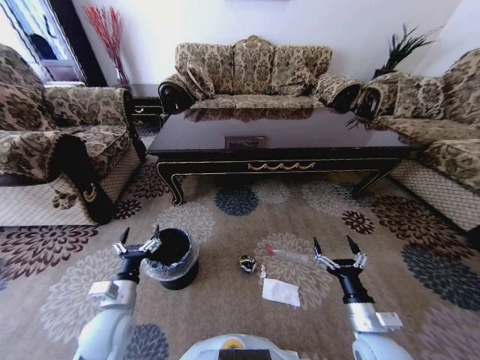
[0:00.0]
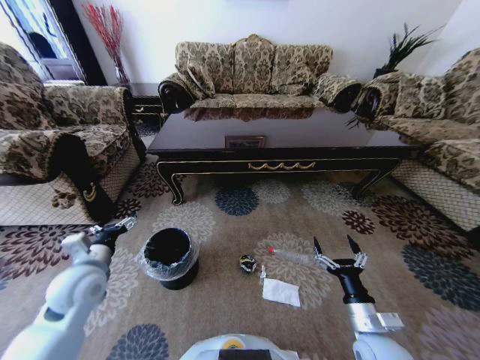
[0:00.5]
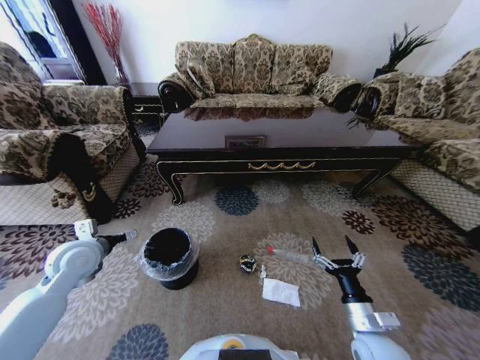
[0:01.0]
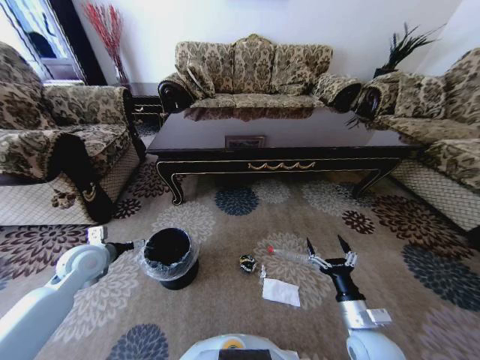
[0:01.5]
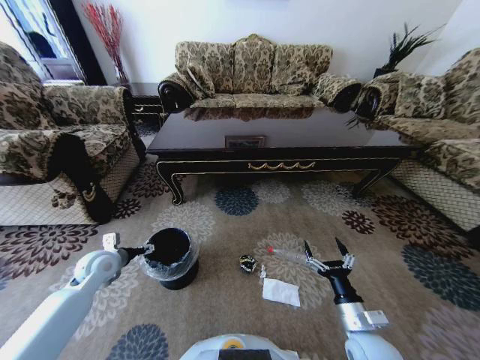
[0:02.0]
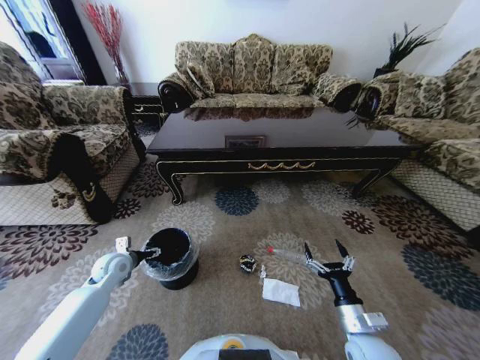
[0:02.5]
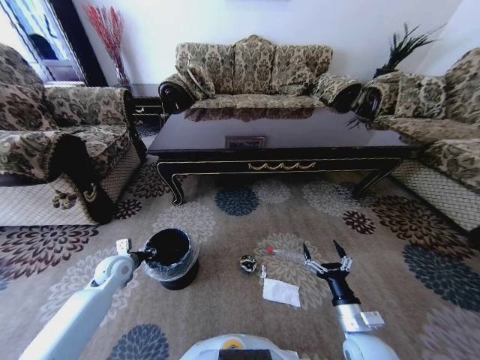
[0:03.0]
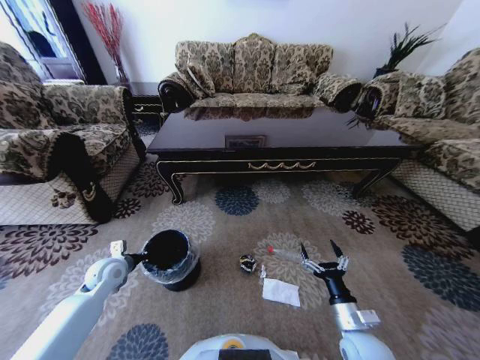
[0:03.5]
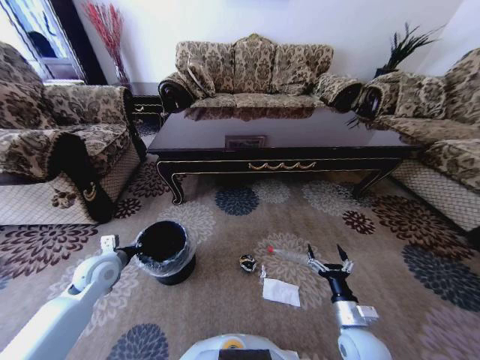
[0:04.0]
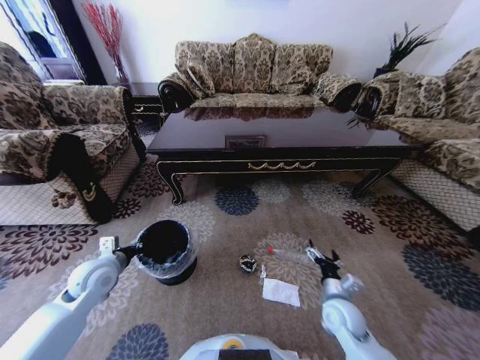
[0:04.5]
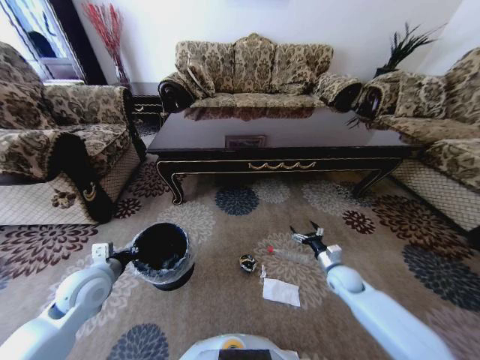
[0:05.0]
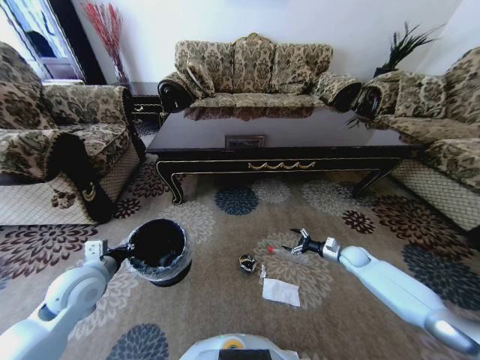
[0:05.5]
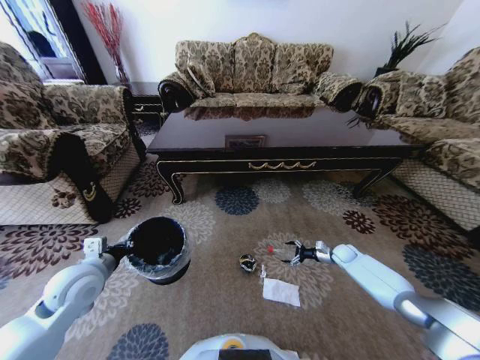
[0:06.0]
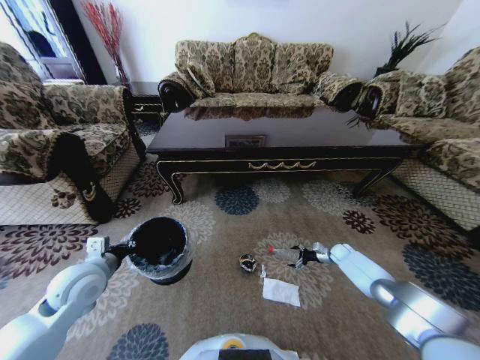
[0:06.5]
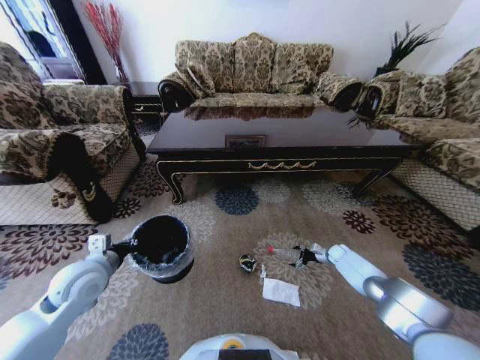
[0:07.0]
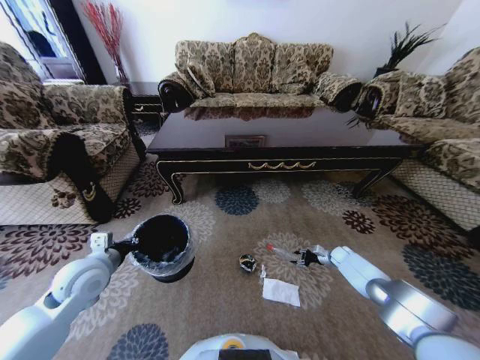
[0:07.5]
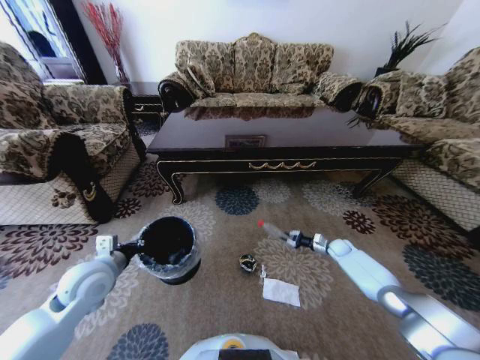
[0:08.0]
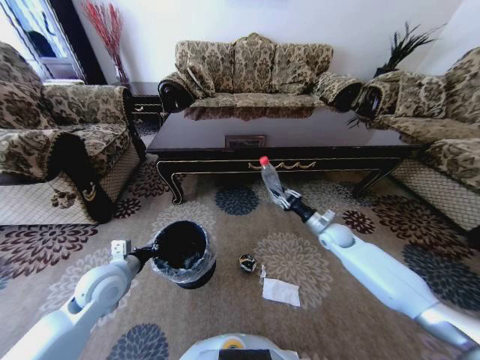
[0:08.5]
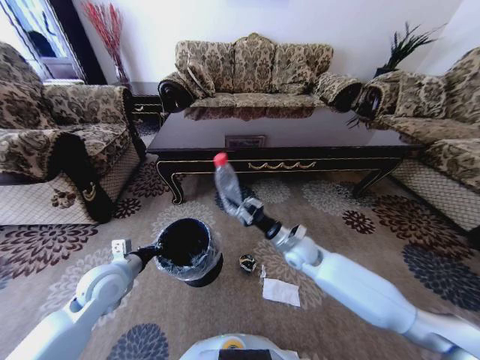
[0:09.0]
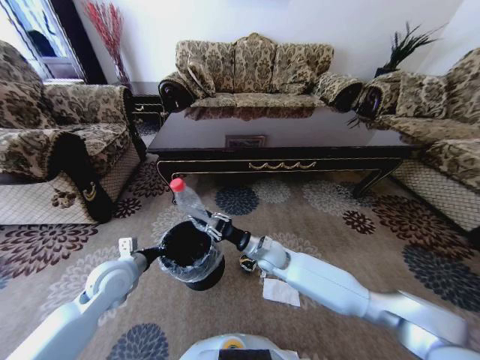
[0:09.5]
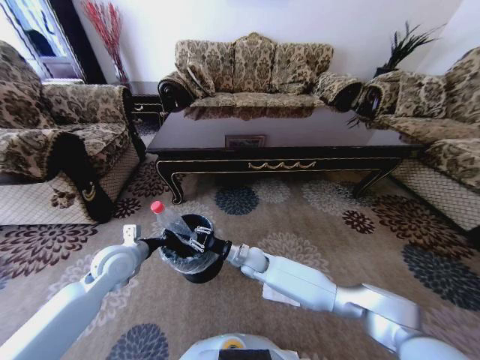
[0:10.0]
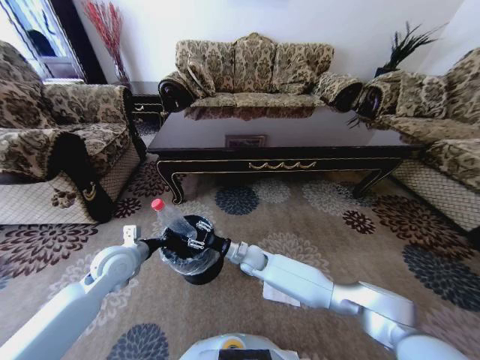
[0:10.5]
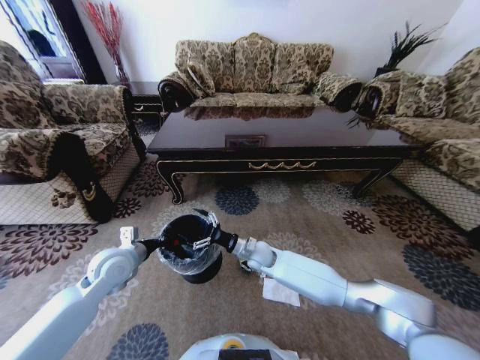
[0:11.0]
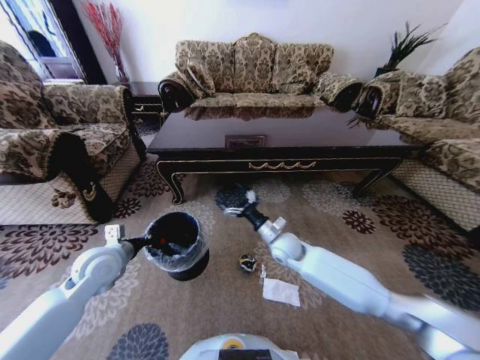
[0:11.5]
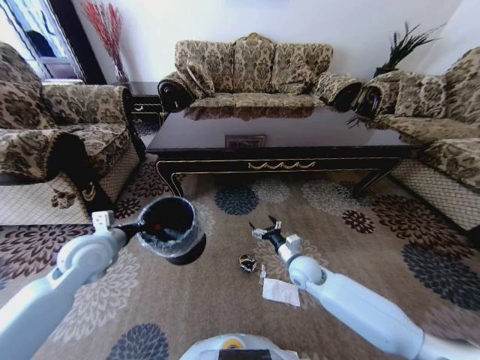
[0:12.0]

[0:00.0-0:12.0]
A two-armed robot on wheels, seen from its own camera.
Task of the whole recording: Move to the front of the table and pick up the trash from the floor, then place it into the trash bin.
0:00.0 to 0:02.0: The left gripper shifts roughly 20 cm forward and to the left.
0:02.0 to 0:04.0: The left gripper closes its fingers.
0:04.0 to 0:06.0: The left gripper travels upward and backward by about 10 cm. Meanwhile the right gripper is displaced forward and to the right by about 35 cm.
0:06.0 to 0:08.0: The right gripper closes its fingers.
0:08.0 to 0:10.0: The right gripper goes approximately 40 cm to the left, while the left gripper is displaced forward by some 5 cm.
0:10.0 to 0:12.0: The left gripper is displaced upward by some 5 cm; the right gripper goes about 15 cm to the right, and opens its fingers.

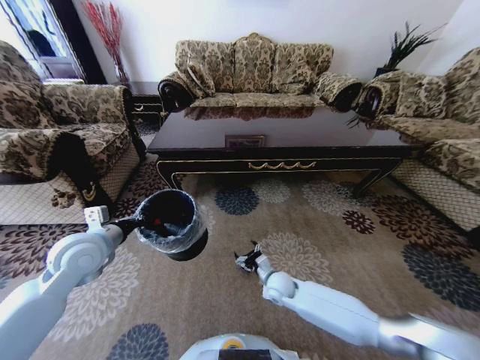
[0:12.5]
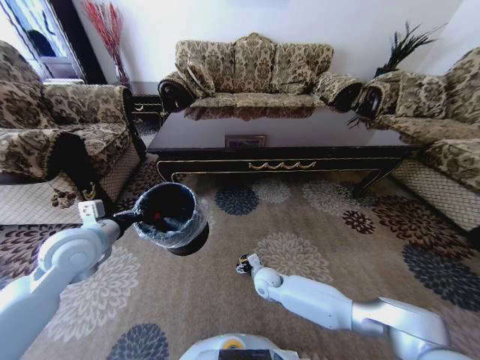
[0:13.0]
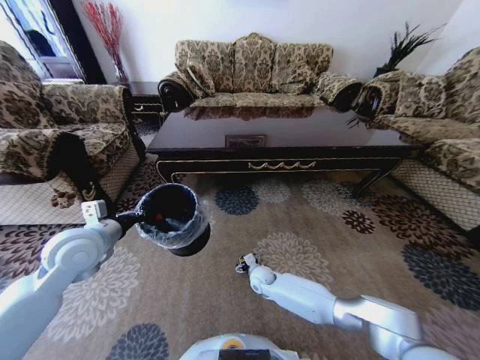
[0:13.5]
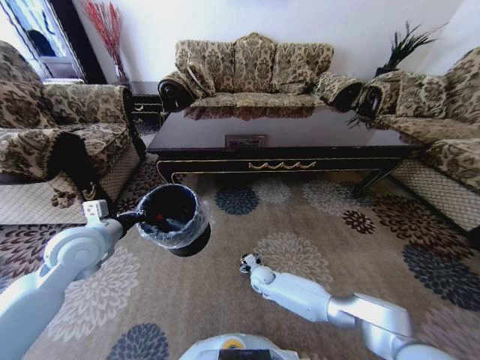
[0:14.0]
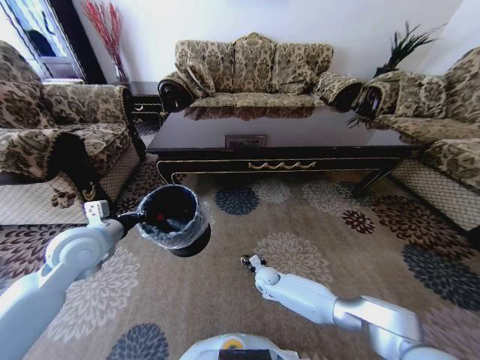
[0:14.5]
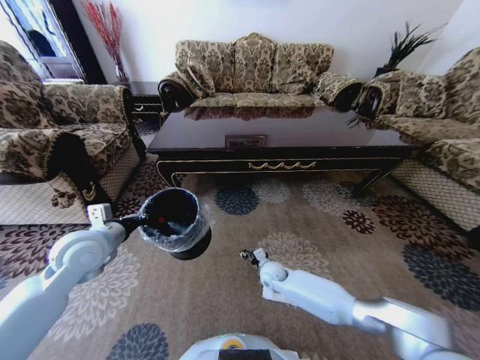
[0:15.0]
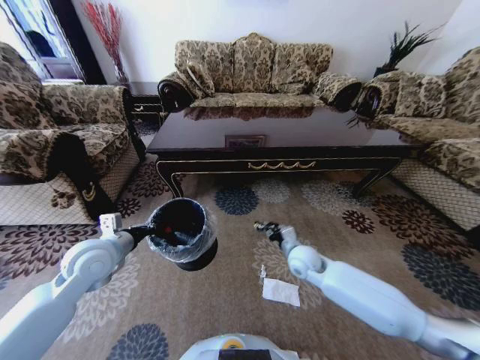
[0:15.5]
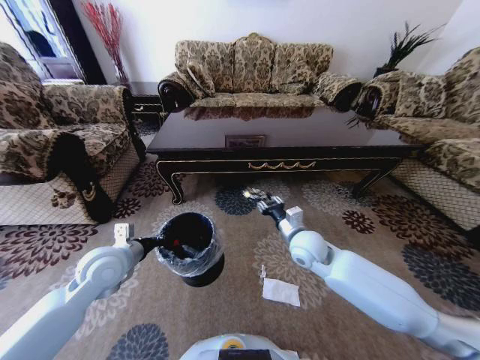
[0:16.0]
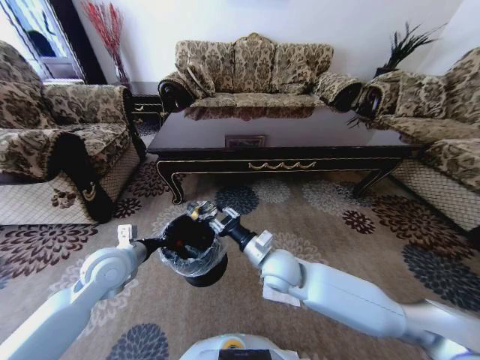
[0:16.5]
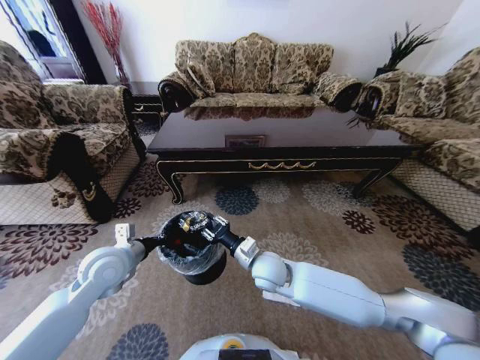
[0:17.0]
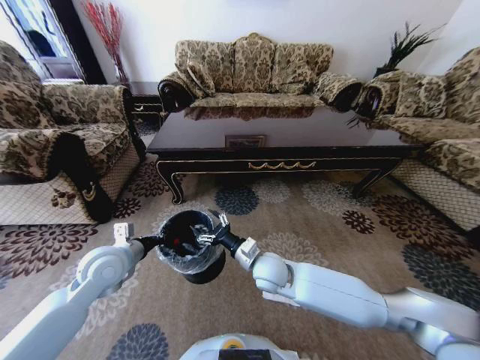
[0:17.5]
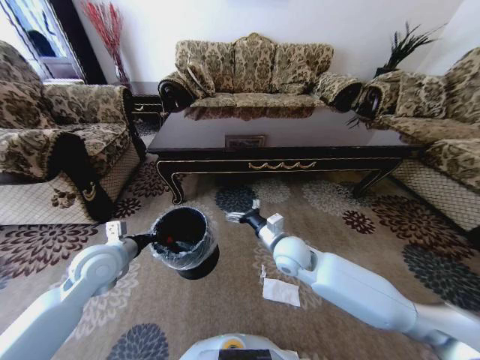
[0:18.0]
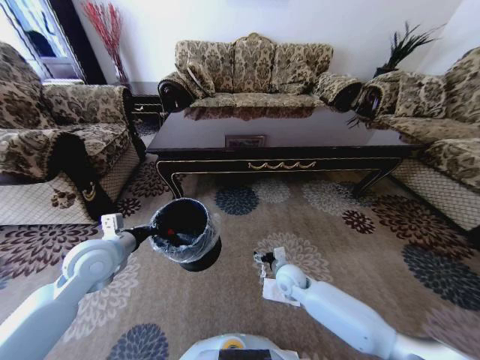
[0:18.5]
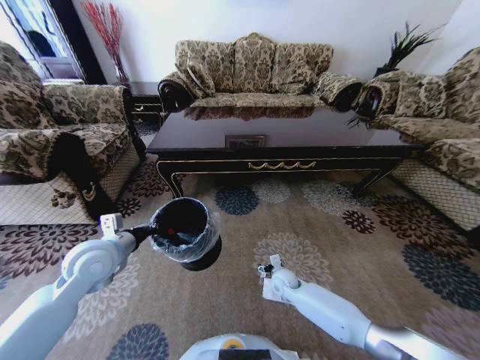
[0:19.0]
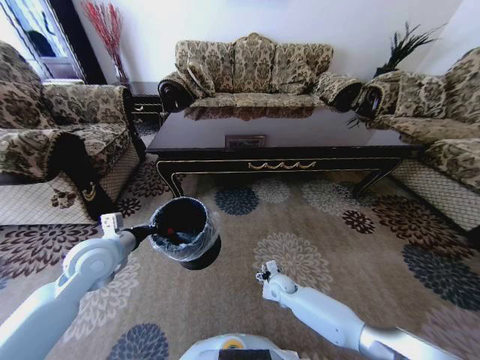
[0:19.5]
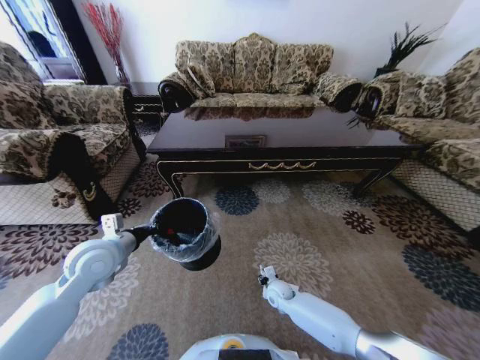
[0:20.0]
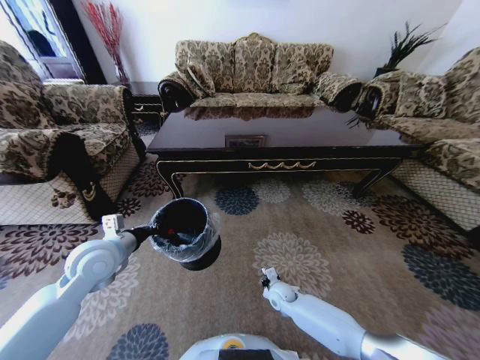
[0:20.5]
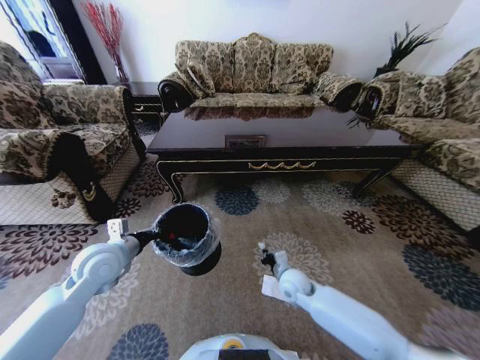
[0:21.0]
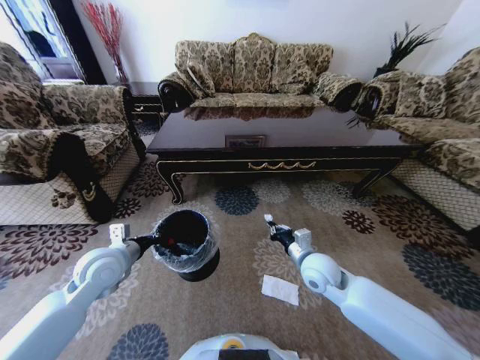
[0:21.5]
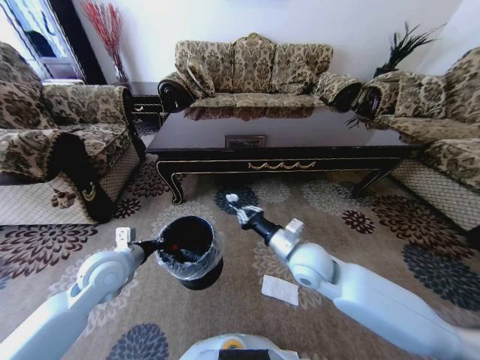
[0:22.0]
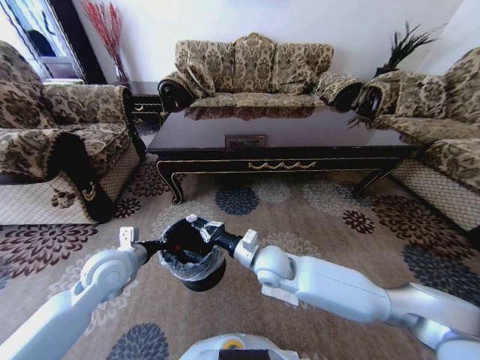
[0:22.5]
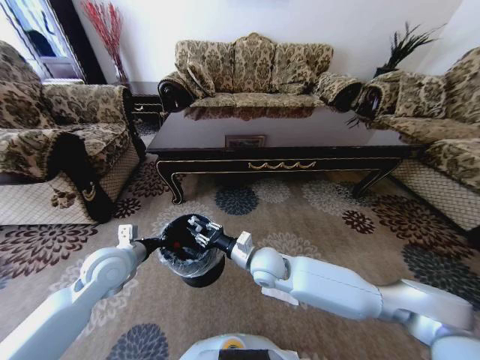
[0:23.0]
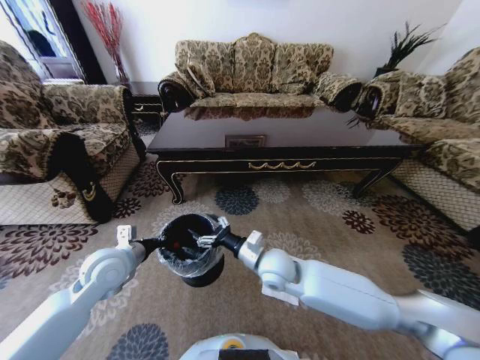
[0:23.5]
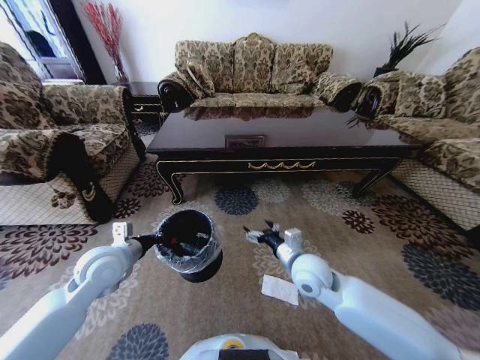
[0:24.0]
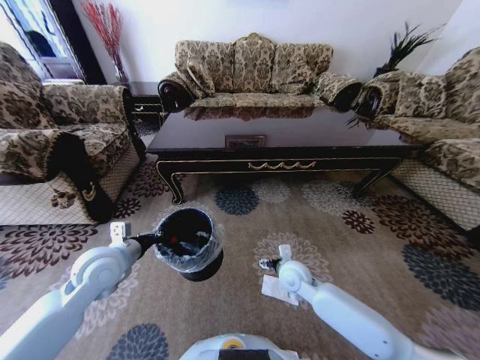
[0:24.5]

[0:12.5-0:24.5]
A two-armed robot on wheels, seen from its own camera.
Task of the whole recording: Move to the front of the table and pick up the trash from the floor, then place it into the trash bin.
0:12.5 to 0:14.5: The right gripper moves downward and forward, approximately 10 cm, and closes.
0:14.5 to 0:16.5: The right gripper goes some 25 cm upward. Meanwhile the left gripper is displaced downward by approximately 5 cm.
0:16.5 to 0:18.5: The right gripper goes some 15 cm downward and to the right, and opens up.
0:18.5 to 0:20.5: The right gripper shifts roughly 10 cm downward, and closes up.
0:20.5 to 0:22.5: The right gripper goes about 25 cm upward.
0:22.5 to 0:24.5: The right gripper moves to the right and downward, about 10 cm, and opens up.

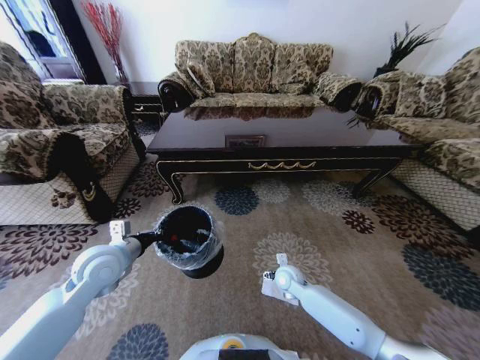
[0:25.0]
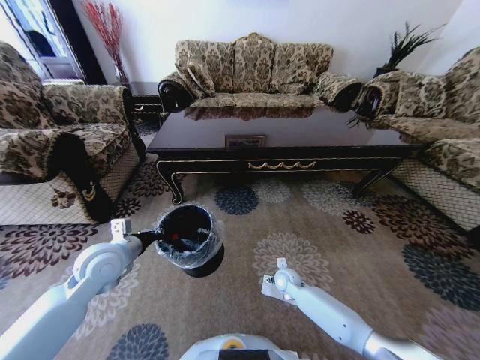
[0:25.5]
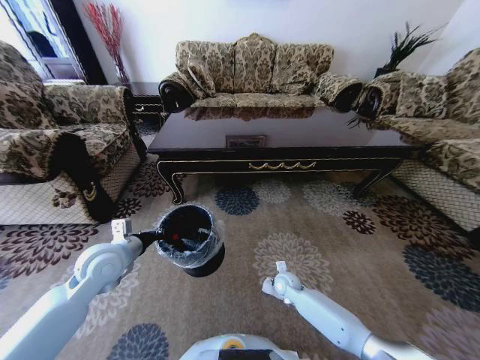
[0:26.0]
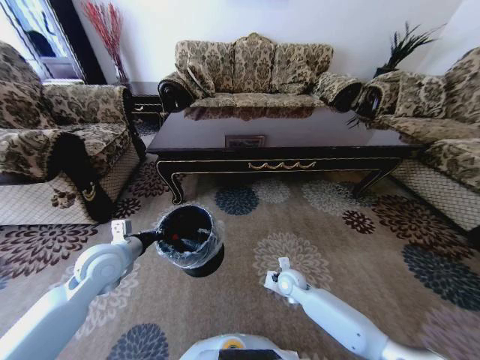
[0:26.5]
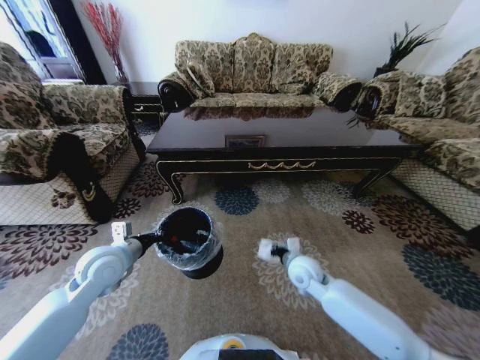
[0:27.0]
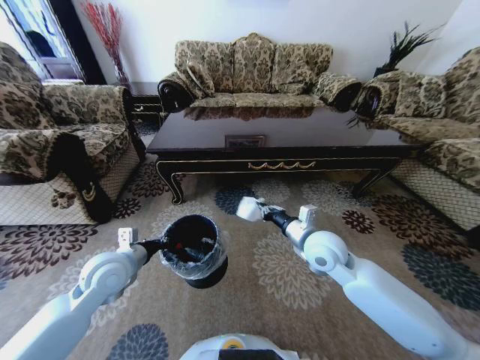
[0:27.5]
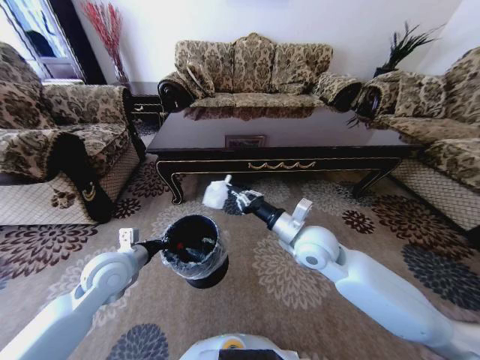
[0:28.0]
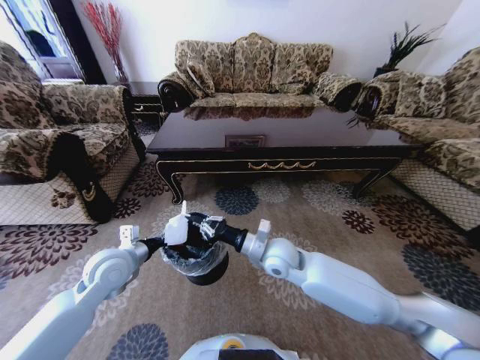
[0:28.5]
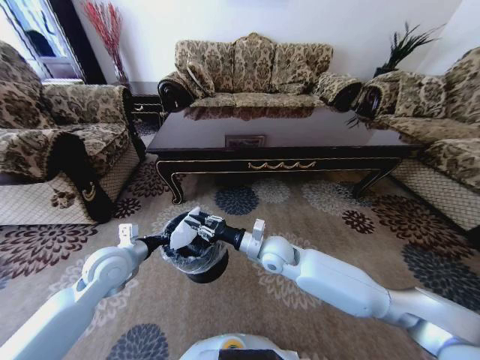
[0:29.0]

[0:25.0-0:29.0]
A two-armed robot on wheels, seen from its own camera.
Task of the whole recording: Move to the front of the table and pick up the trash from the floor, then place it into the trash bin.
0:25.0 to 0:27.0: The right gripper goes roughly 10 cm upward, and closes its fingers.
0:27.0 to 0:29.0: The right gripper shifts approximately 10 cm to the left and upward.
